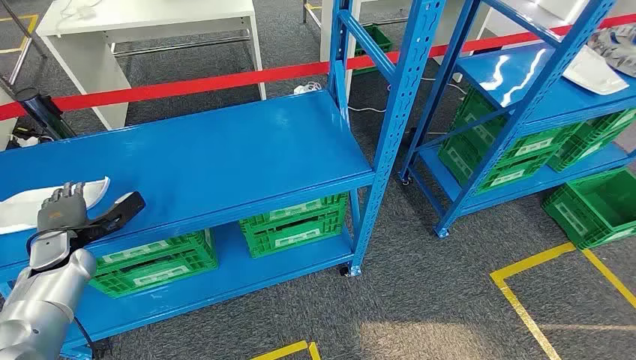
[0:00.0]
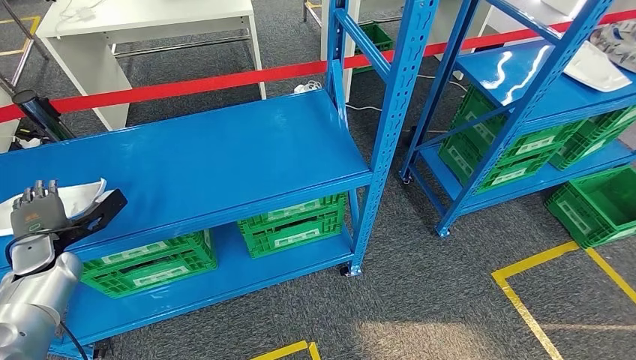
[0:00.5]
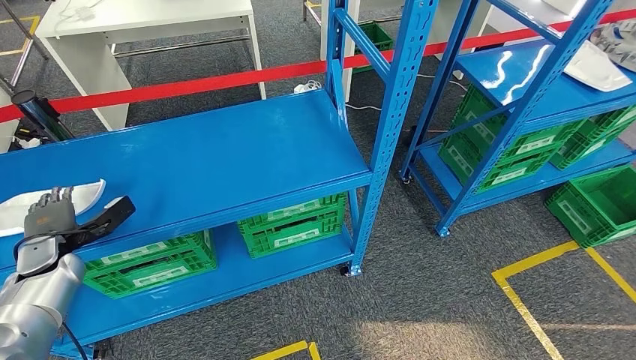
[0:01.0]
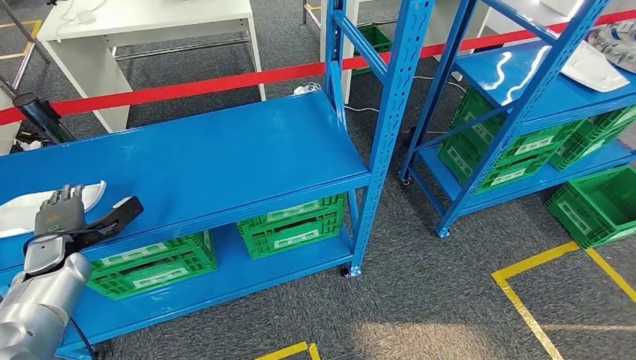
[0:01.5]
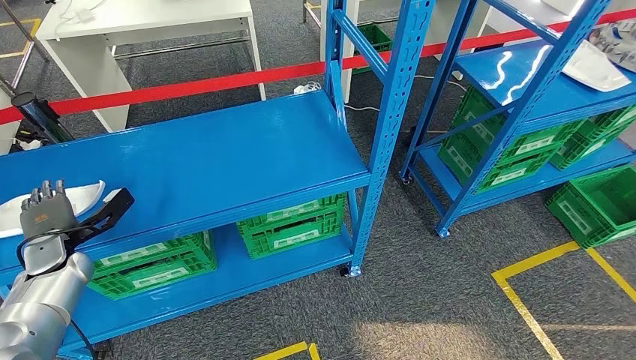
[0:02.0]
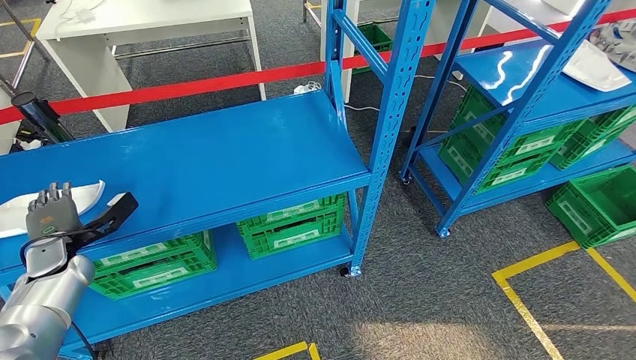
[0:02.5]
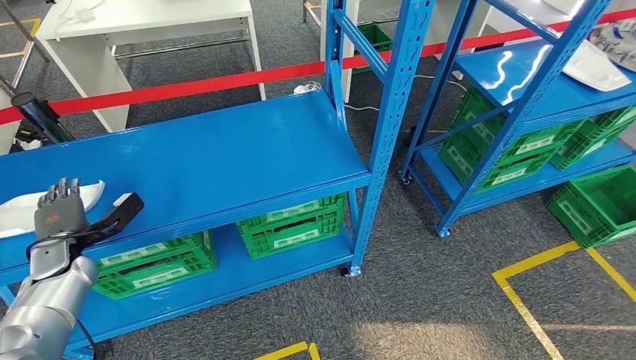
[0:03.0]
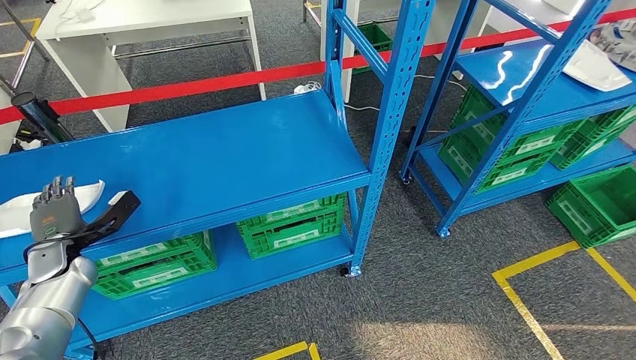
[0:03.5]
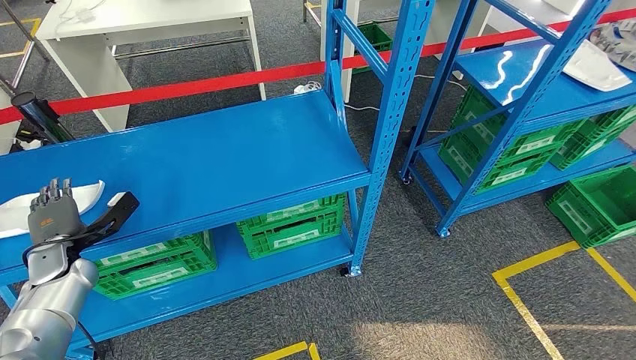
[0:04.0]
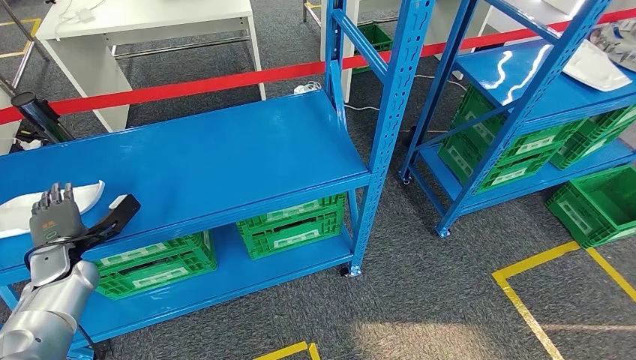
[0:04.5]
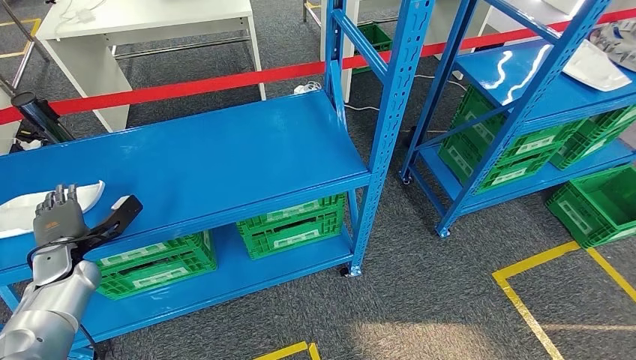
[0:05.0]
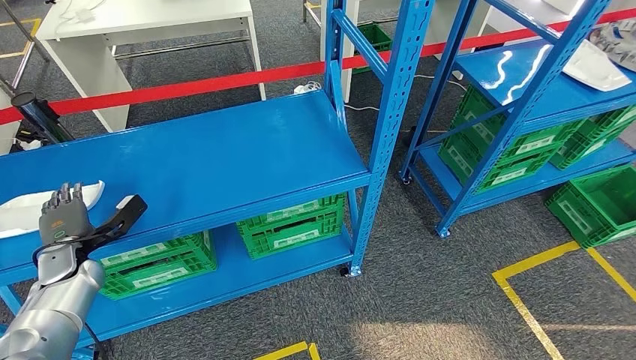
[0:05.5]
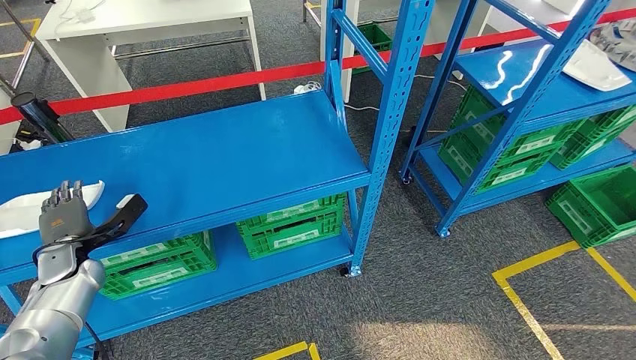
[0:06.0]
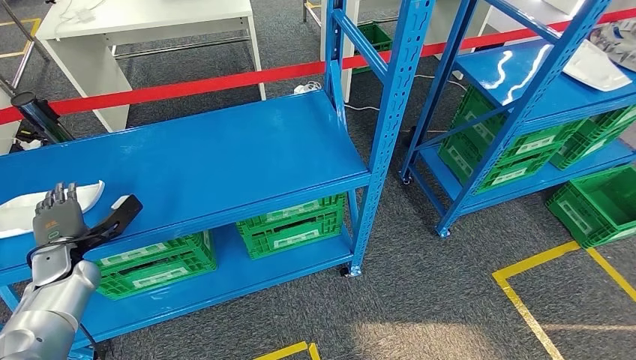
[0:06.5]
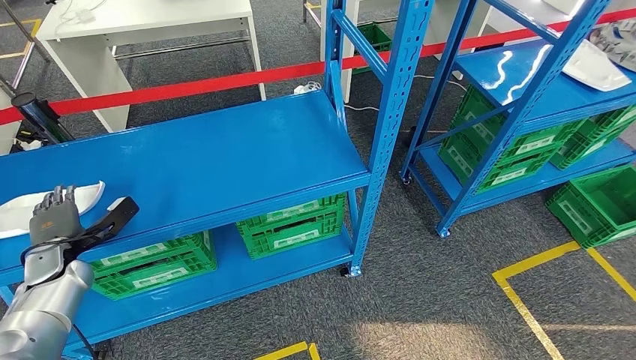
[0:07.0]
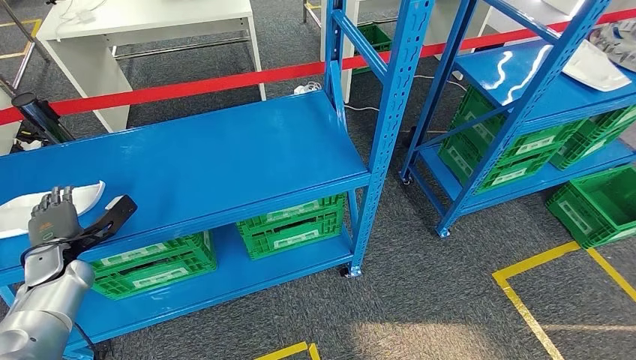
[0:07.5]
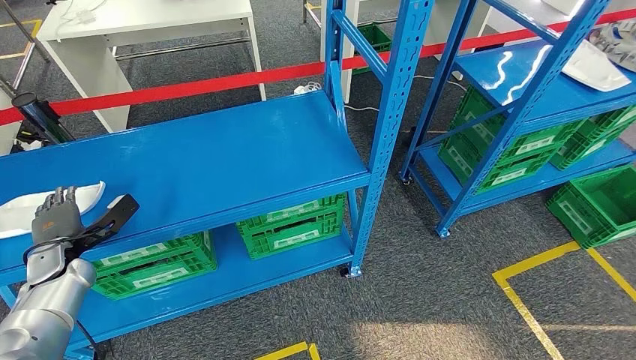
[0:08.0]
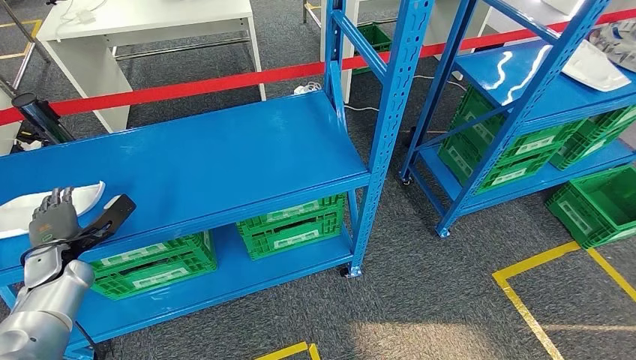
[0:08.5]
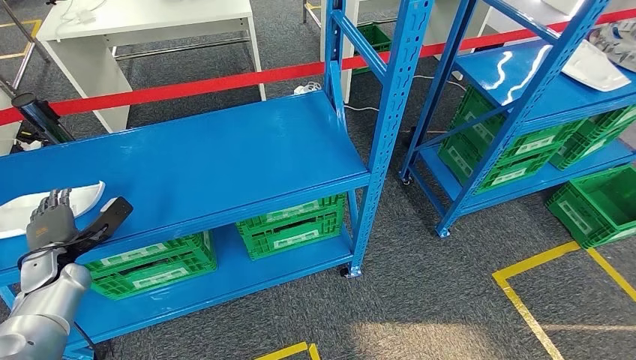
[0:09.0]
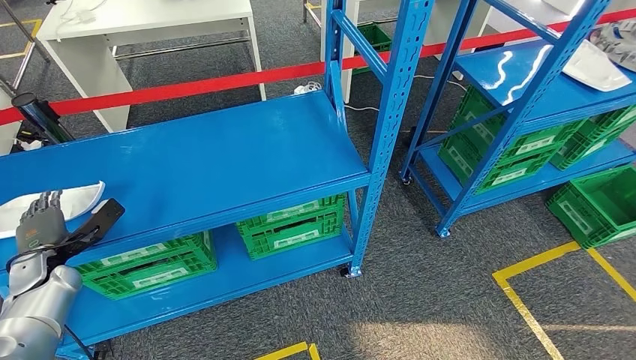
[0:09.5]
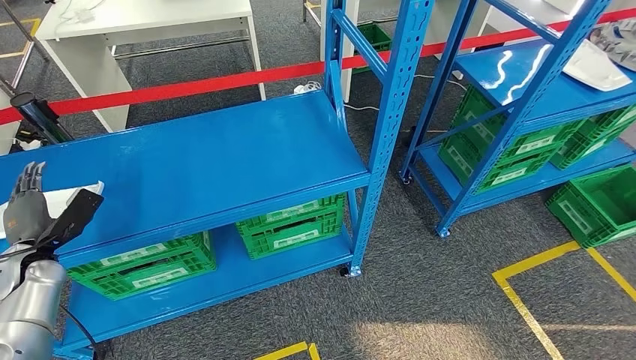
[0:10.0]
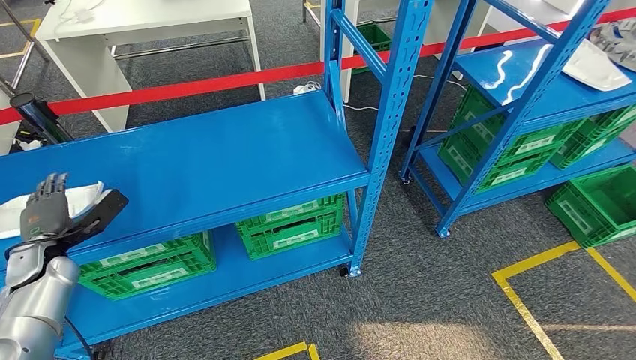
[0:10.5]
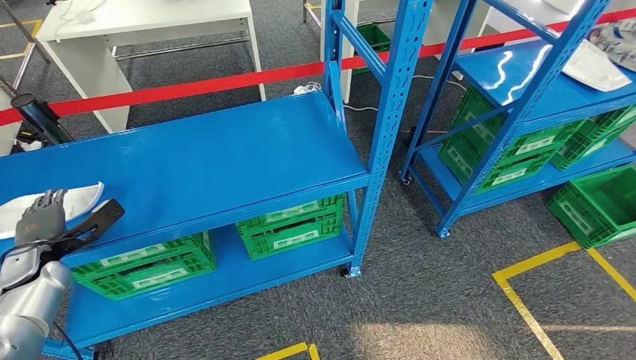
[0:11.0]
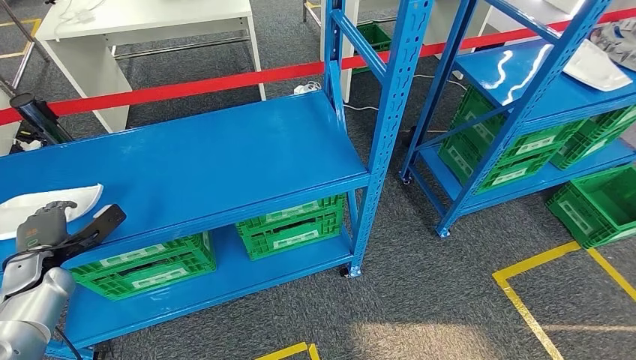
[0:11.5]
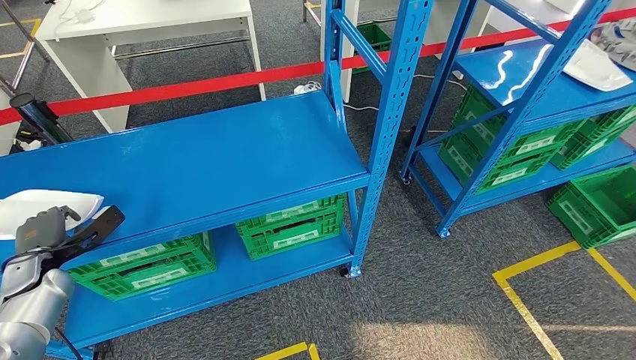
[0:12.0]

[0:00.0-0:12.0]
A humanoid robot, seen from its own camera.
0:02.0 to 0:04.0: The hands make only small movements.
0:04.0 to 0:06.0: The two hands keep their place.
0:06.0 to 0:08.0: There are only small adjustments of the hands.

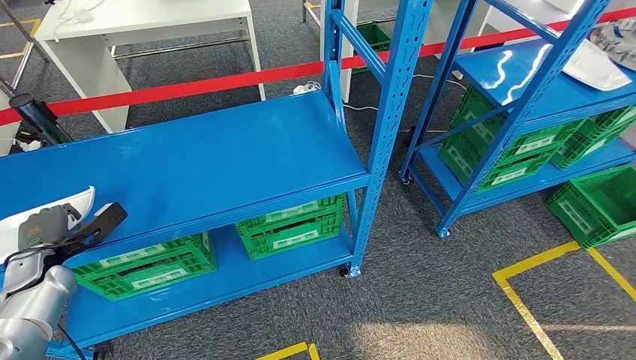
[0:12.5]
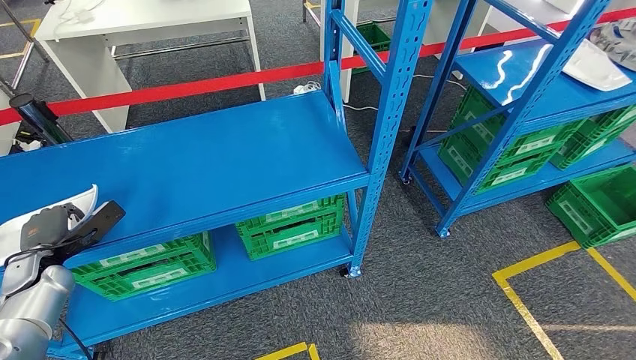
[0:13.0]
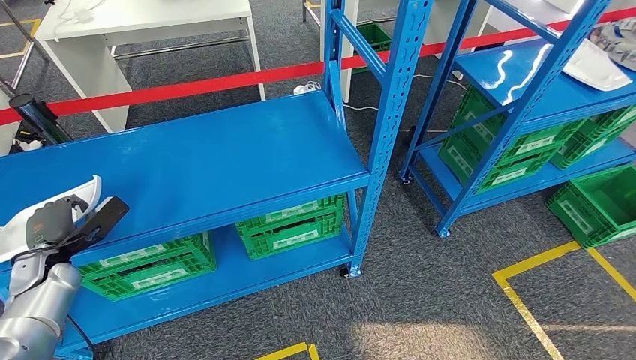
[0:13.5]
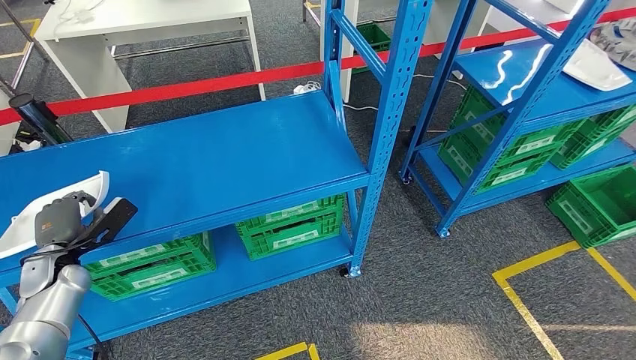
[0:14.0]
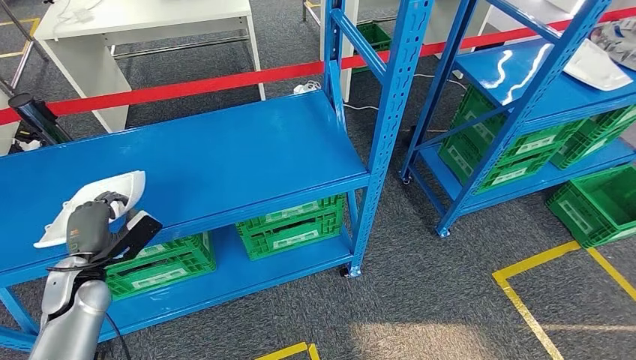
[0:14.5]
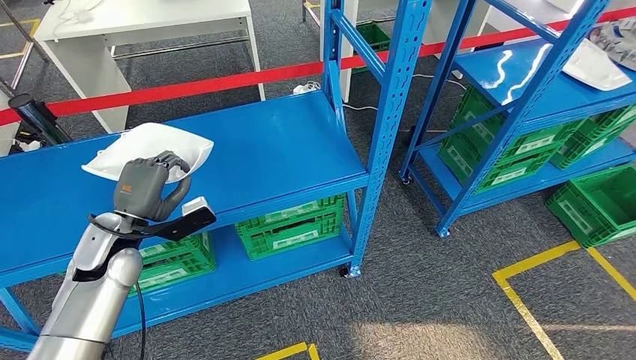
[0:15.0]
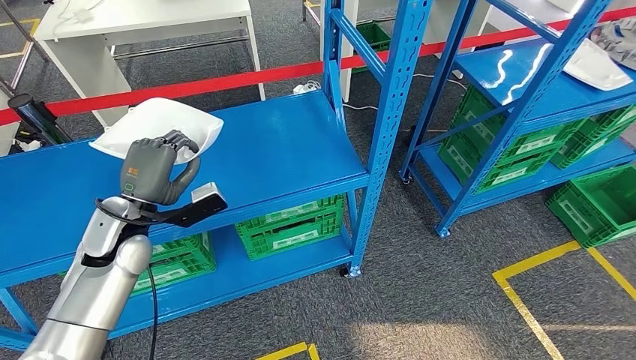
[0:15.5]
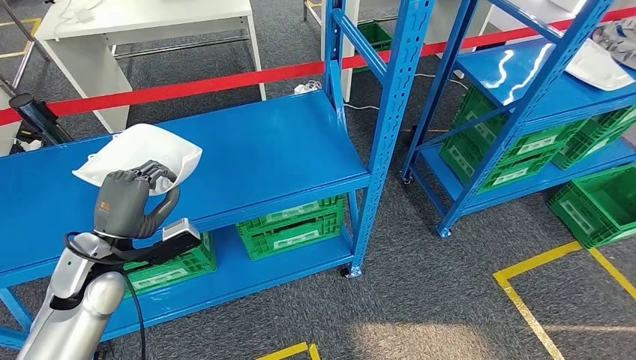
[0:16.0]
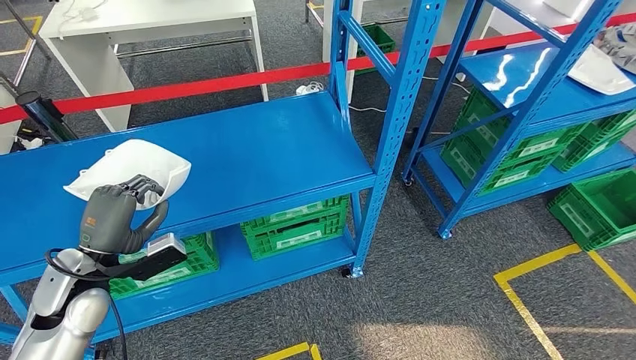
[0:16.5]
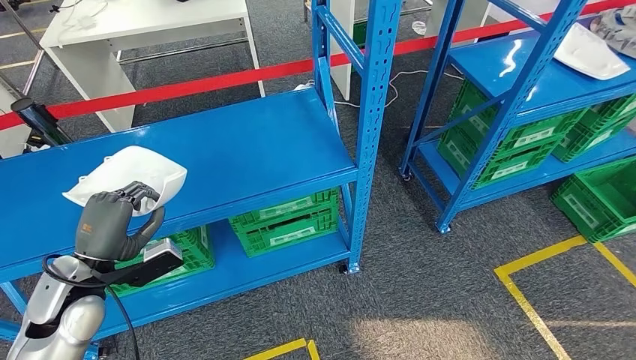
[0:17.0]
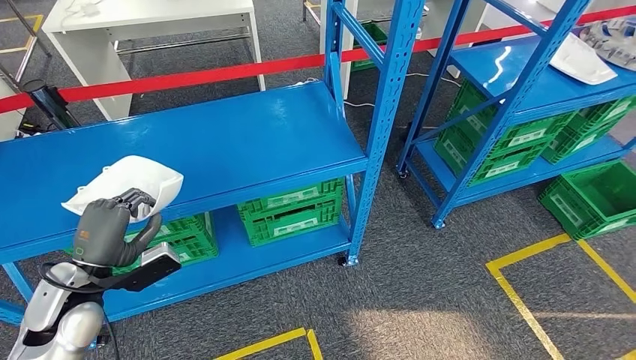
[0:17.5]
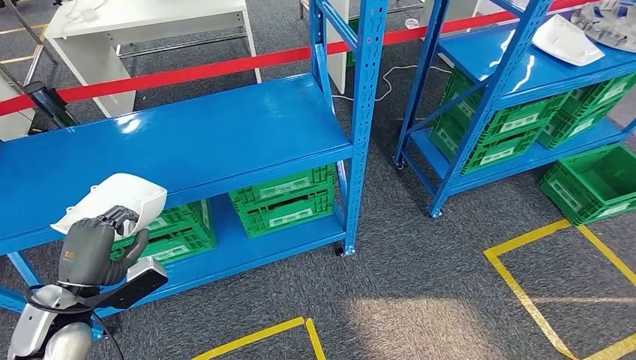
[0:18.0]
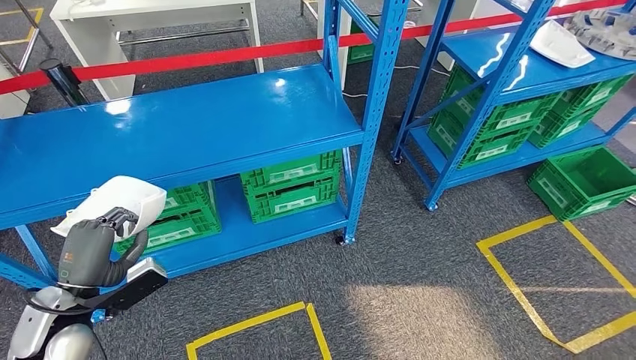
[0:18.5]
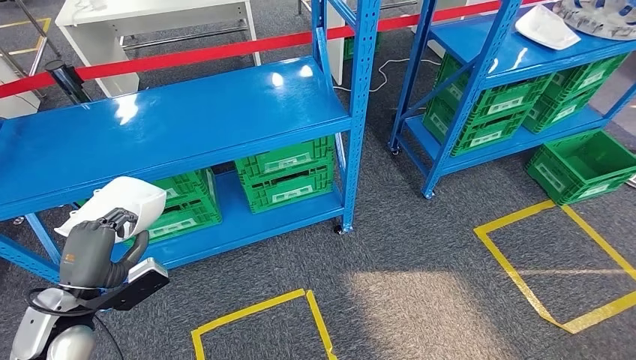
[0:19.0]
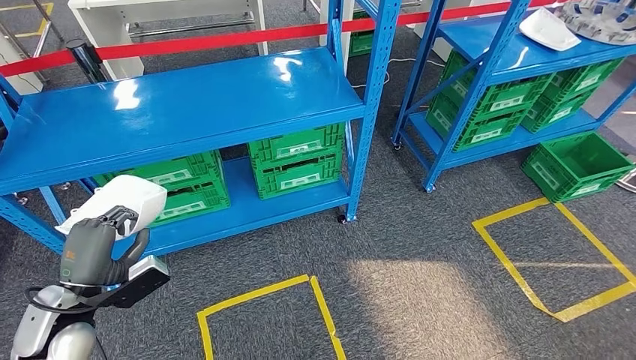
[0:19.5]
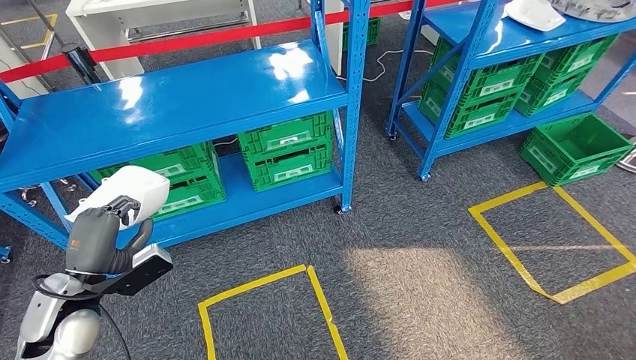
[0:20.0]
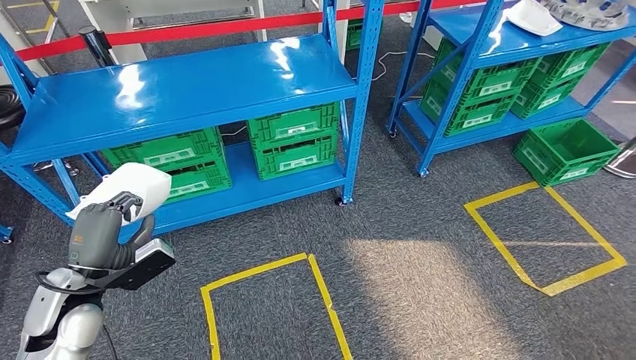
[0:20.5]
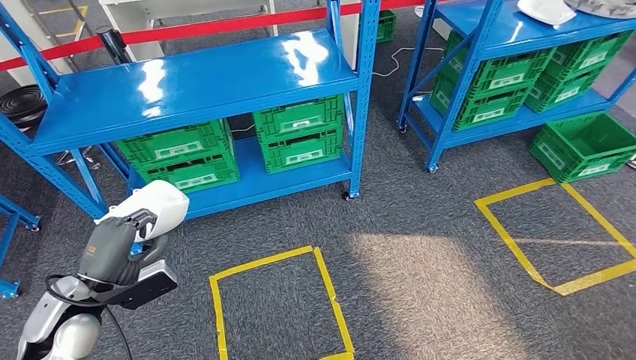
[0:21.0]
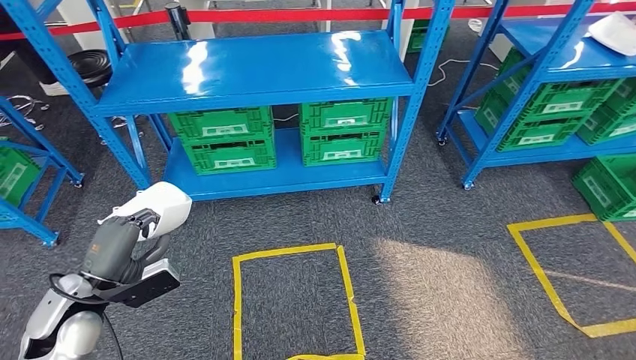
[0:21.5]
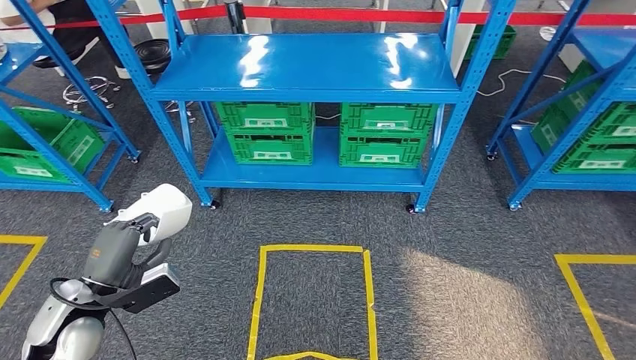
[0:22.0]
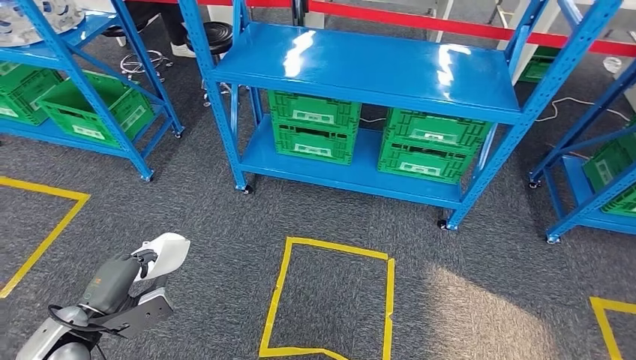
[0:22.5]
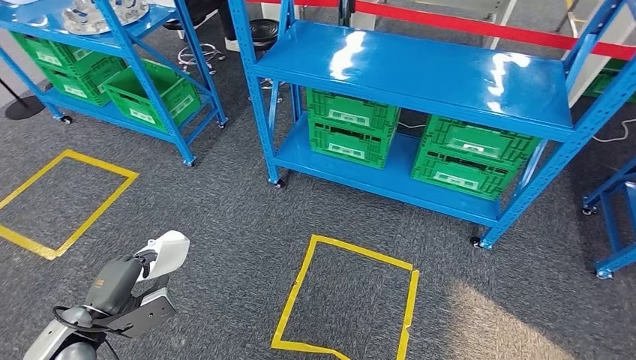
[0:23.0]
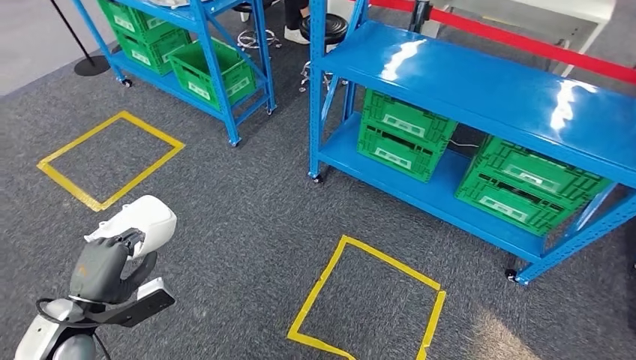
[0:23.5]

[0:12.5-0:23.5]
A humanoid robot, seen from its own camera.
Step, 0:12.5 to 0:15.0: Pick up the small component from the shelf.
0:12.5 to 0:14.5: The left hand travels to the right by some 10 cm.
0:14.5 to 0:16.0: The left hand travels upward and to the right by about 10 cm.
